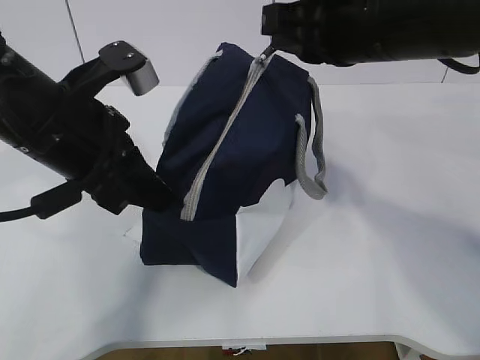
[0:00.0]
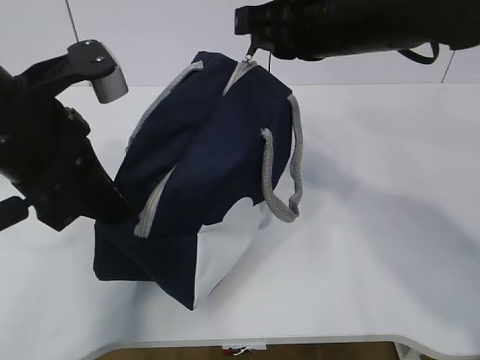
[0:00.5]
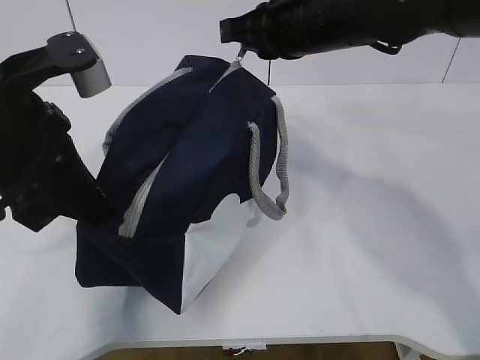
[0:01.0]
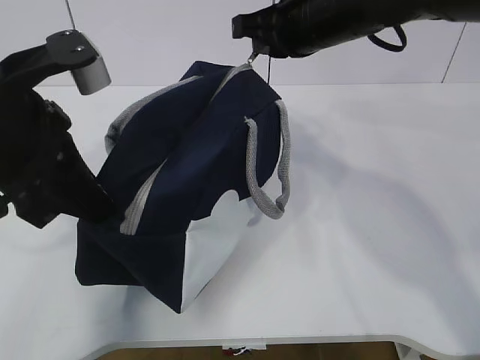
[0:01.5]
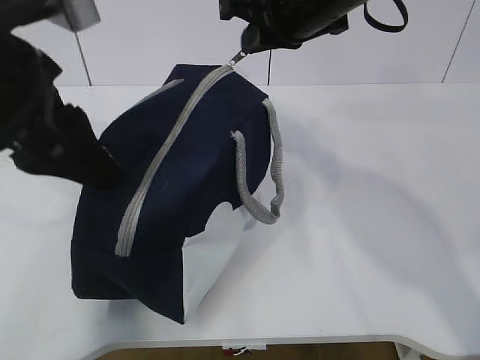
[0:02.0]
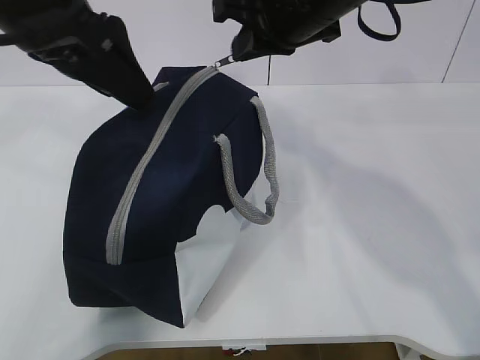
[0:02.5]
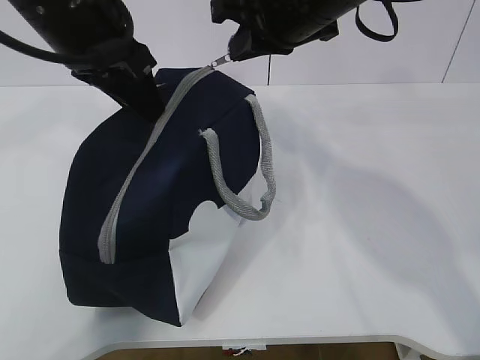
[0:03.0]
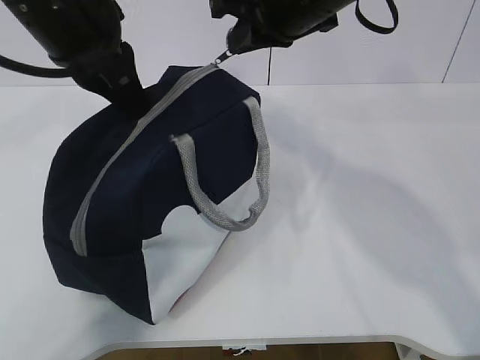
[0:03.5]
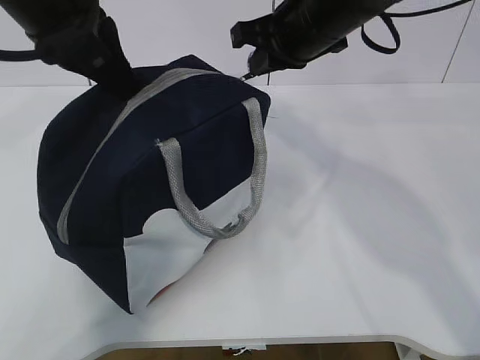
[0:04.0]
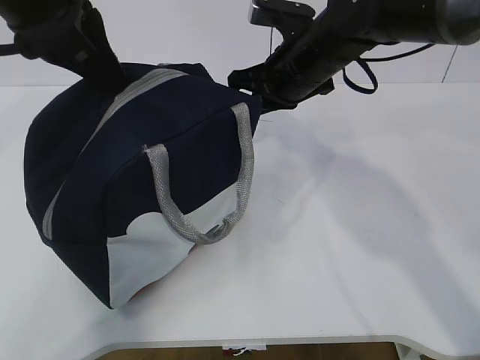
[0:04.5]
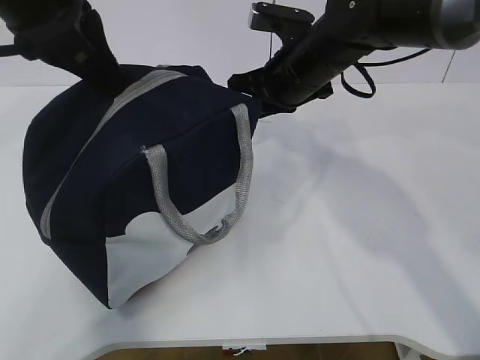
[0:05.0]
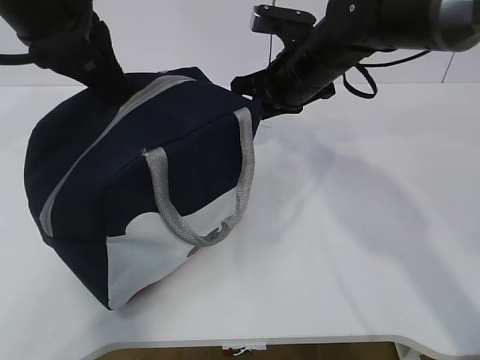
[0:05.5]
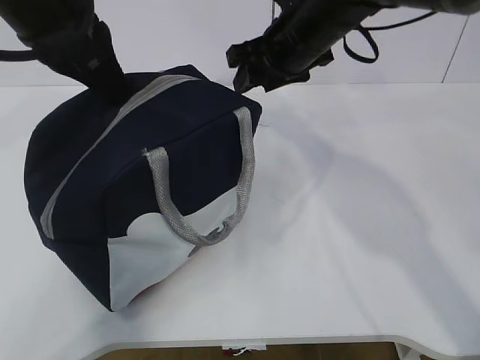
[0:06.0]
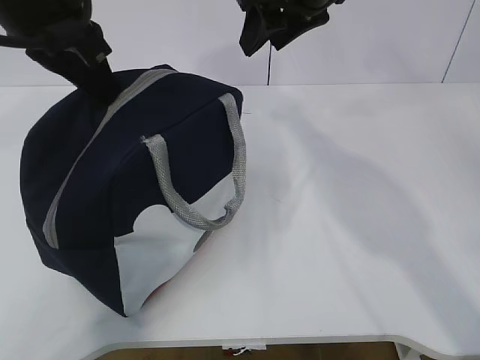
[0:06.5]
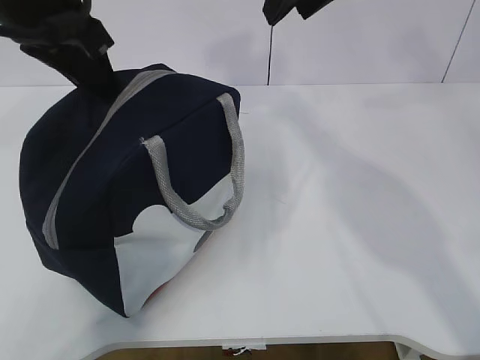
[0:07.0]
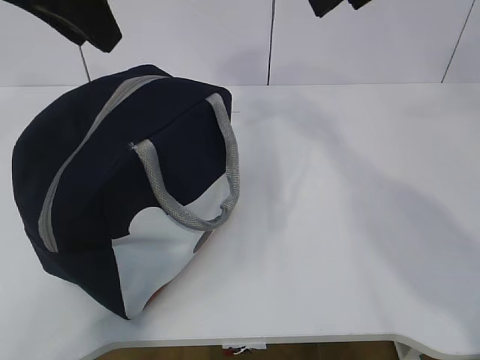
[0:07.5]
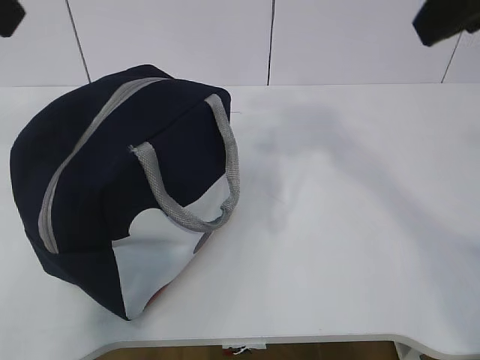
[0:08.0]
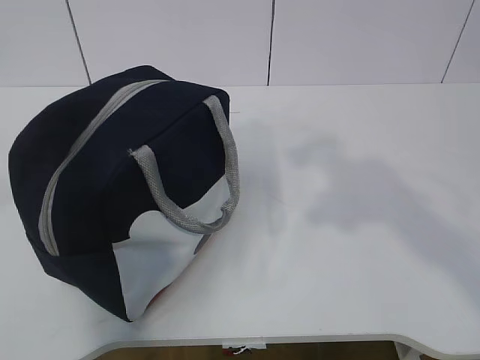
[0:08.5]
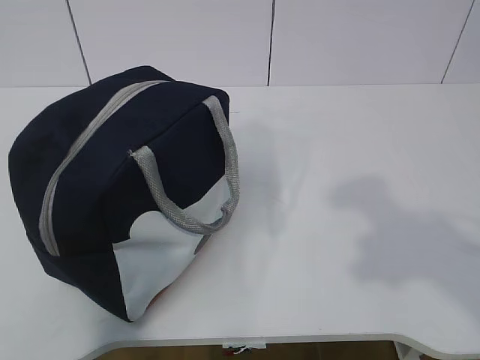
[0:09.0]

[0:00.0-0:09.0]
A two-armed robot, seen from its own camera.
0.0 to 2.0 s: The right gripper shifts some 10 cm forward. The left gripper shifts roughly 5 cm upward, and opens up.
2.0 to 4.5 s: The left gripper travels forward and upward by roughly 10 cm, and closes its fingers, while the right gripper goes some 10 cm downward.
4.5 to 7.0 s: The right gripper is displaced upward by roughly 15 cm, and opens its fingers.
7.0 to 9.0 s: The left gripper is displaced backward and to the left by approximately 30 cm, while the right gripper is displaced backward and to the right by some 35 cm.

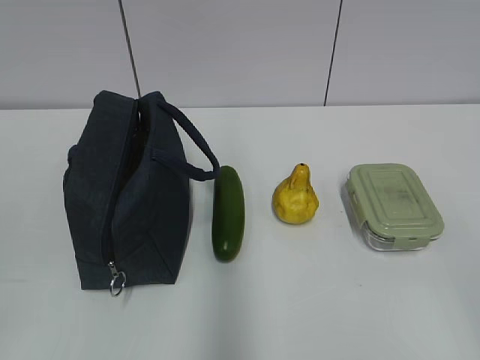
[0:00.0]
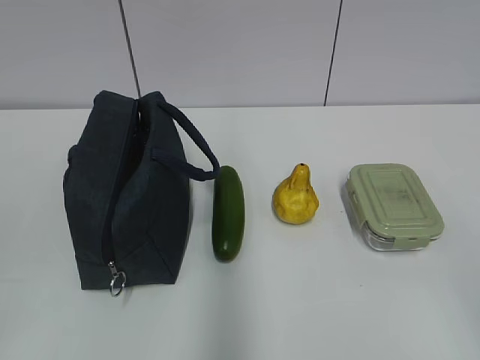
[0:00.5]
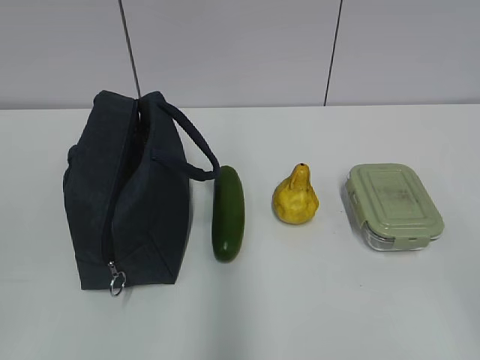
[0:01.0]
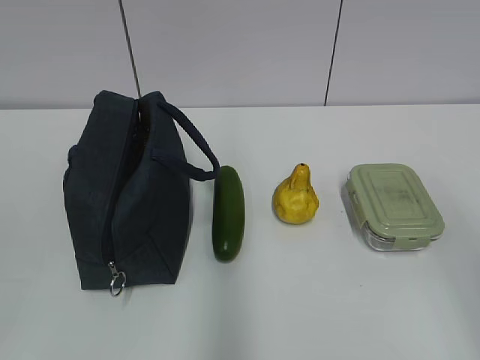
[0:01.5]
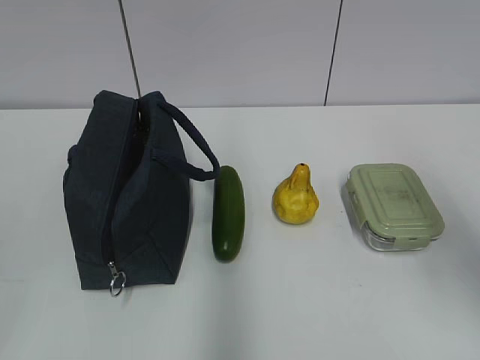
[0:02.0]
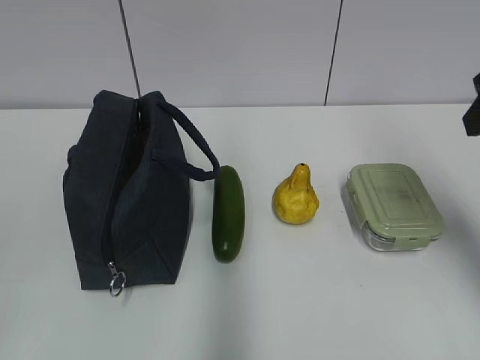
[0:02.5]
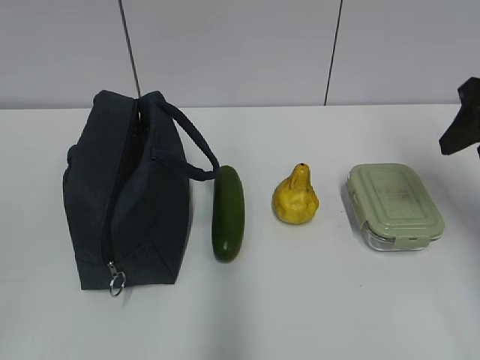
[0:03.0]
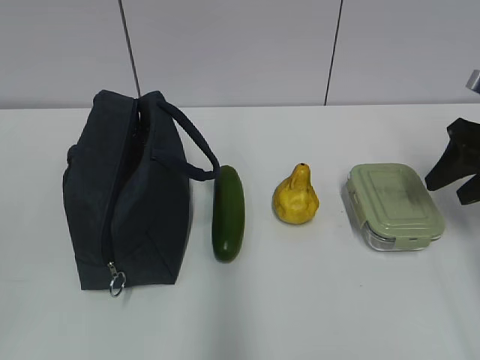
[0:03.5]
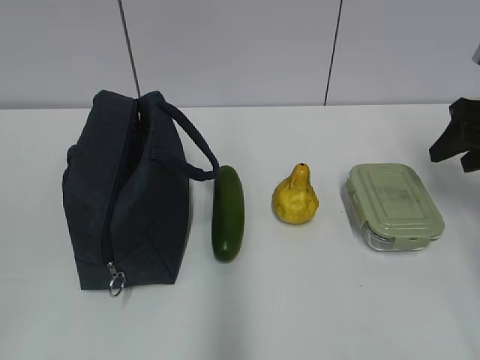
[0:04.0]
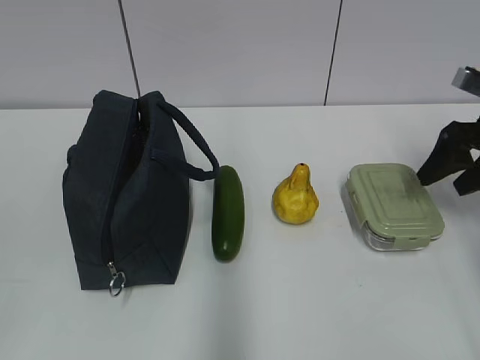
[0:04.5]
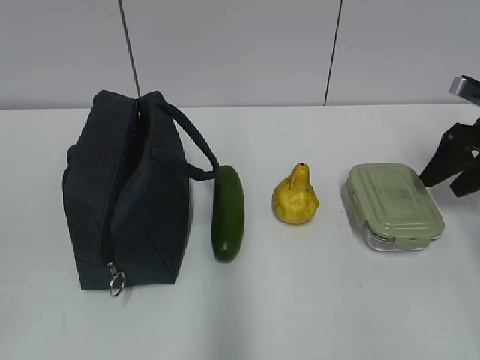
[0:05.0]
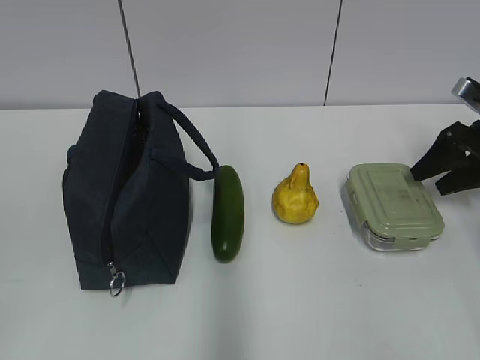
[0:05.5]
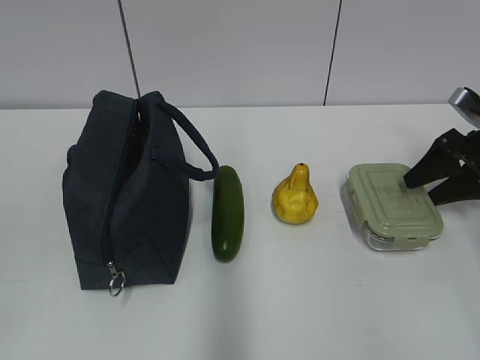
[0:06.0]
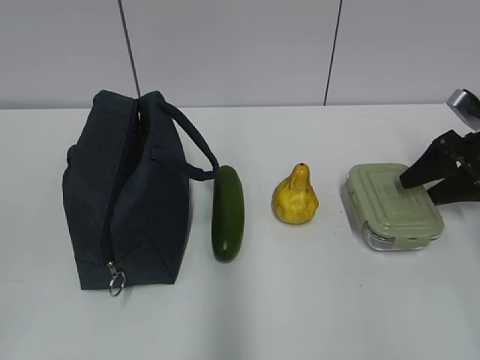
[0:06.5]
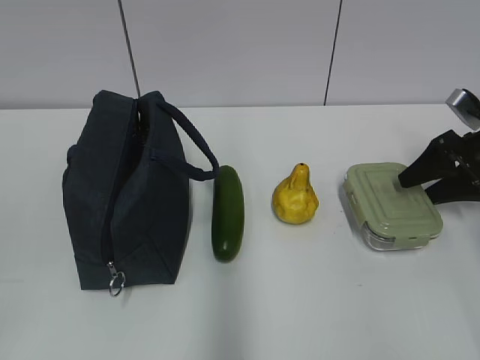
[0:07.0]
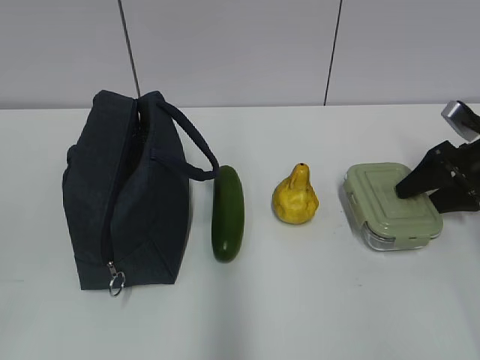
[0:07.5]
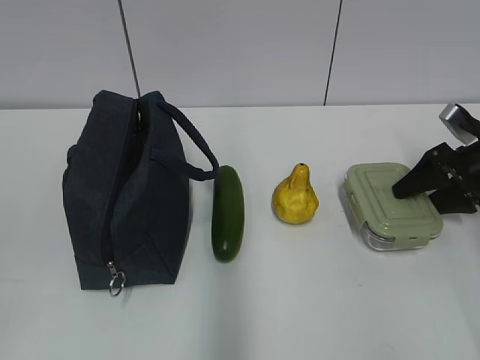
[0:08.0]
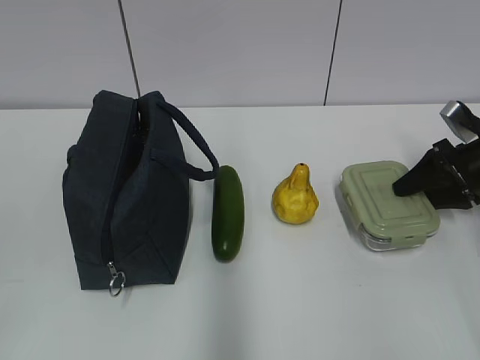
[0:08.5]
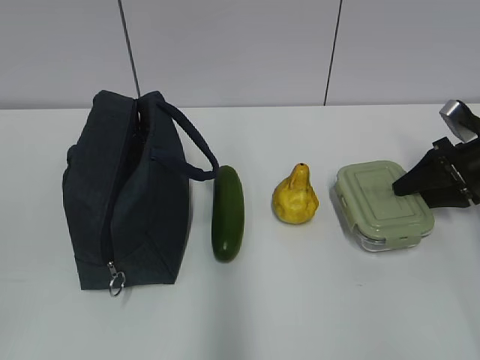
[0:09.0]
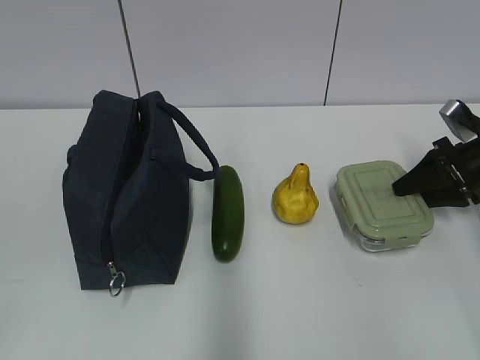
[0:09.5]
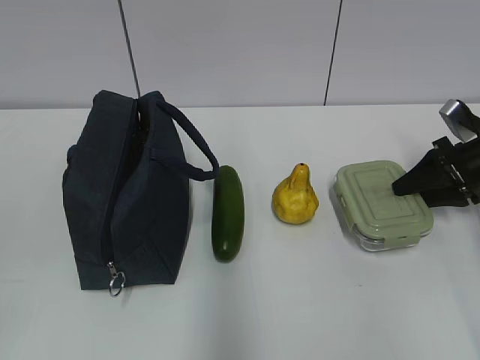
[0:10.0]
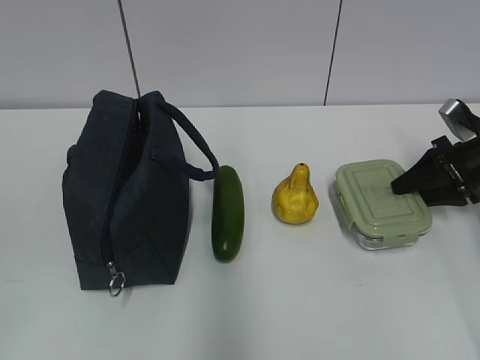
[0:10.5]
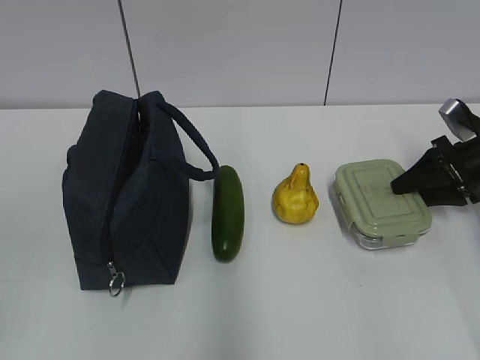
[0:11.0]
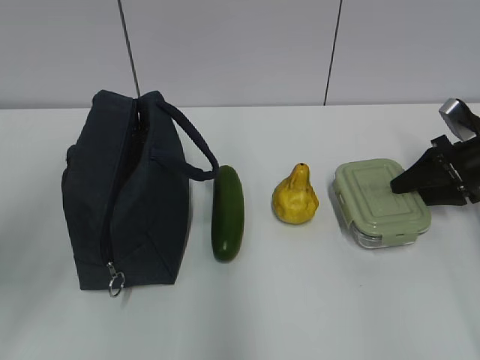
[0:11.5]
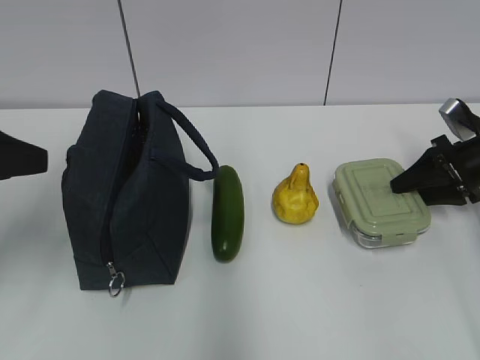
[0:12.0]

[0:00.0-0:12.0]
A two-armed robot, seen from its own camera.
Step, 0.0 to 8.5 s: Grab the lunch box with your right hand.
2.0 to 4.0 s: The right gripper goes approximately 25 cm forward and downward.
4.0 to 6.0 s: The right gripper moves downward, about 5 cm.
6.0 to 8.0 s: The grippers move only a little.
8.0 to 10.0 s: The right gripper closes.
10.0 to 12.0 s: The left gripper is displaced forward by roughly 20 cm.

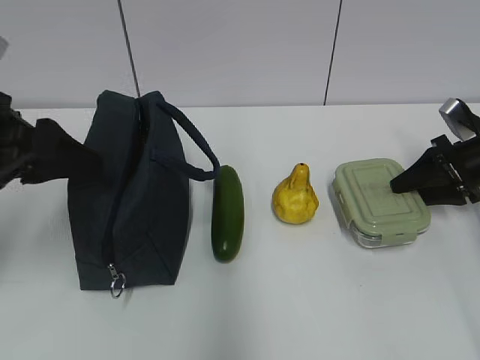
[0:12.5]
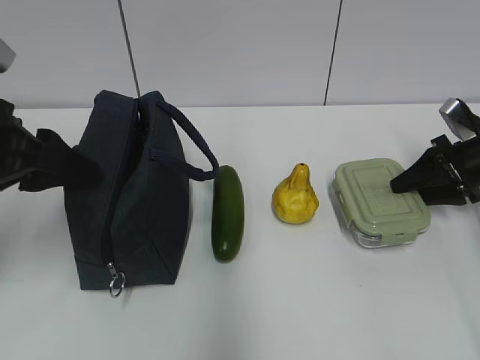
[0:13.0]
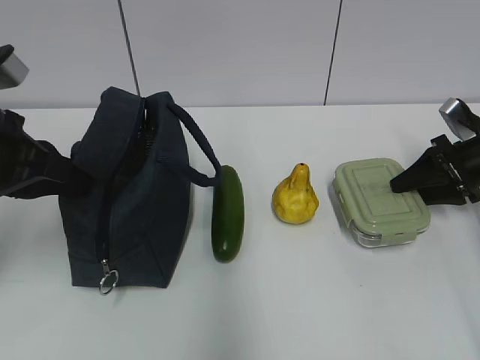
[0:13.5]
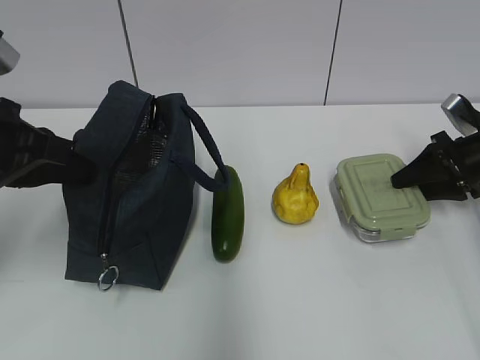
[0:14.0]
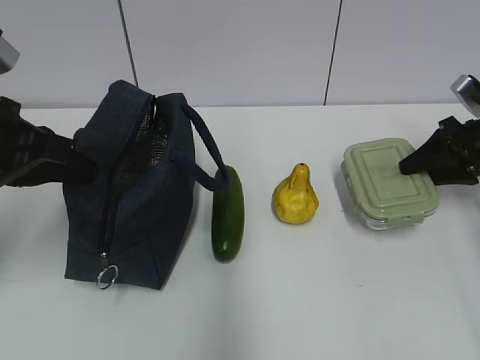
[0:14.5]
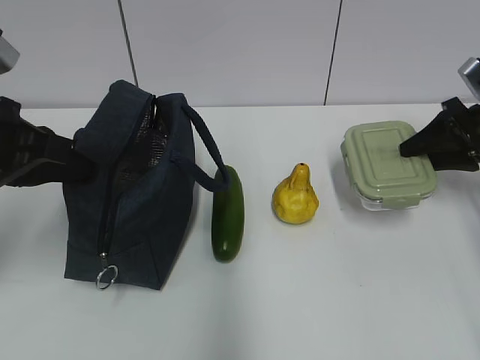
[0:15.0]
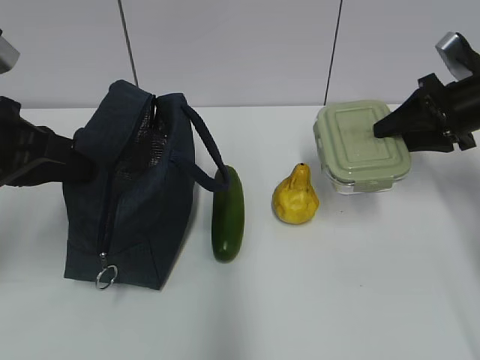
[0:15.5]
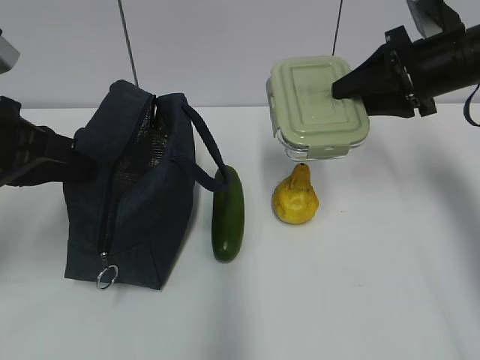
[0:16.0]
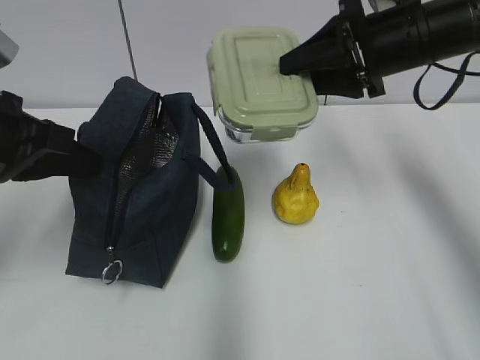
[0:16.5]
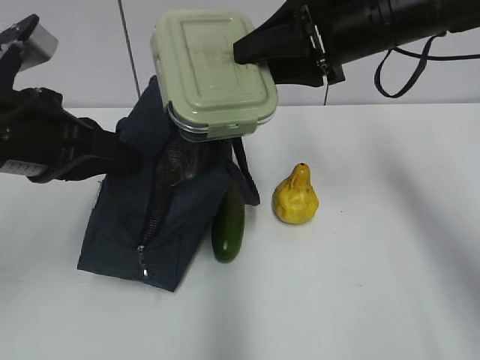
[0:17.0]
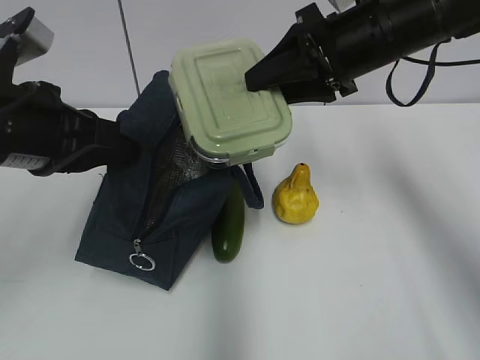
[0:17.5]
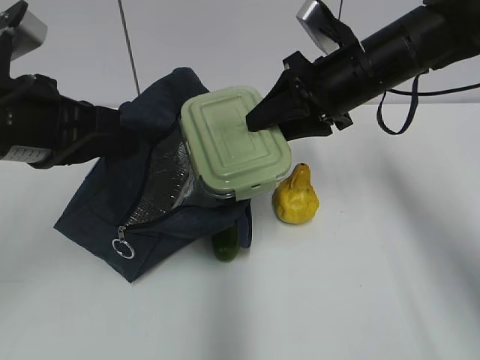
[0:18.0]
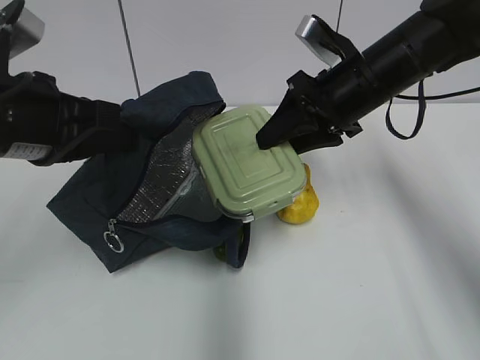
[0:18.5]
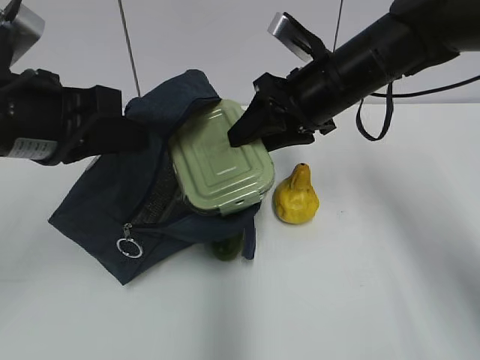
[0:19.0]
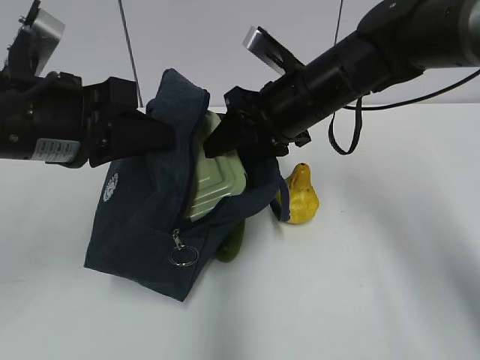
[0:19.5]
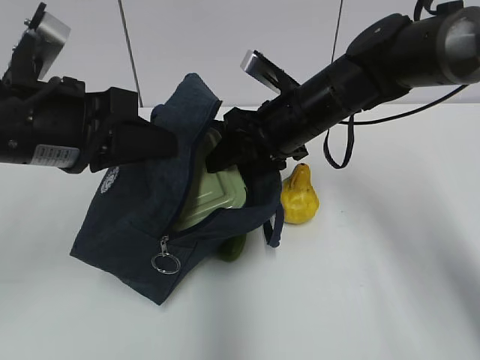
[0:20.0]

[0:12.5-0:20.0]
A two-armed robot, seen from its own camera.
Step, 12.5 to 17.0 s: Grab the lunch bag with your left hand.
12.5 to 14.5 s: The left gripper closes.
14.5 to 16.5 s: The right gripper travels to the left and upward by approximately 20 cm.
16.5 to 18.0 s: The right gripper moves about 5 cm.
18.0 to 20.0 s: The right gripper moves to the left and downward, approximately 10 cm.
